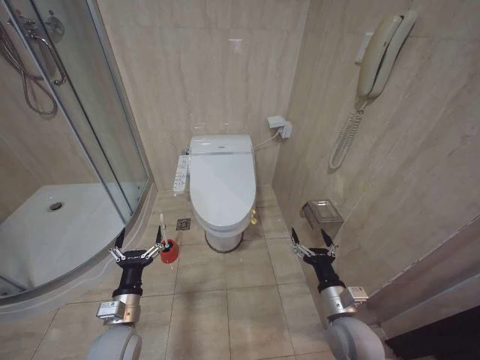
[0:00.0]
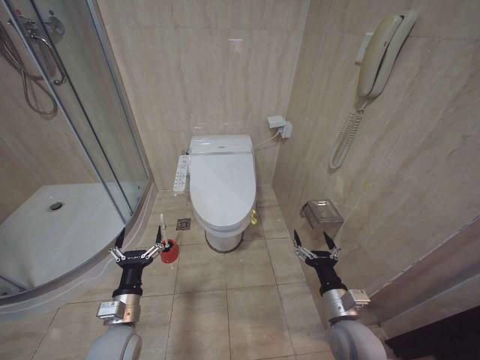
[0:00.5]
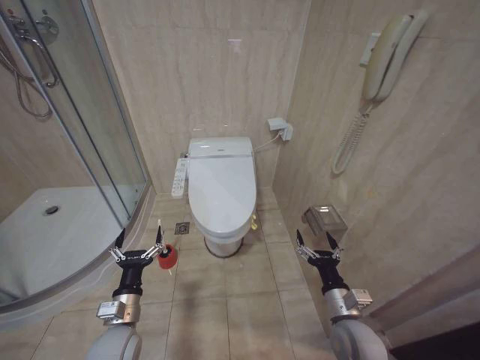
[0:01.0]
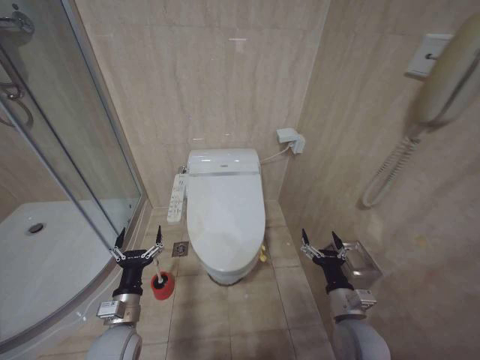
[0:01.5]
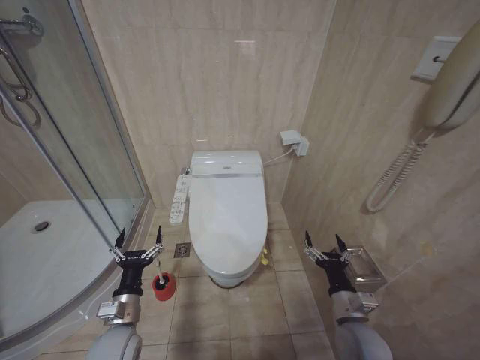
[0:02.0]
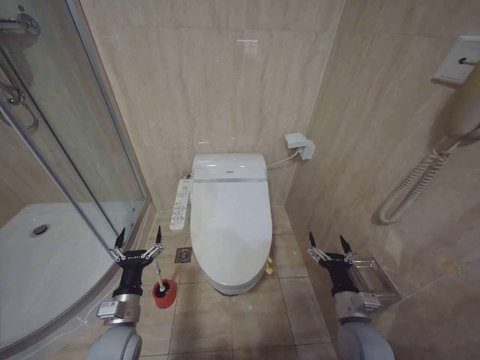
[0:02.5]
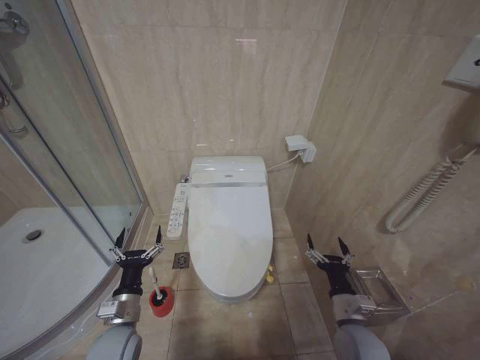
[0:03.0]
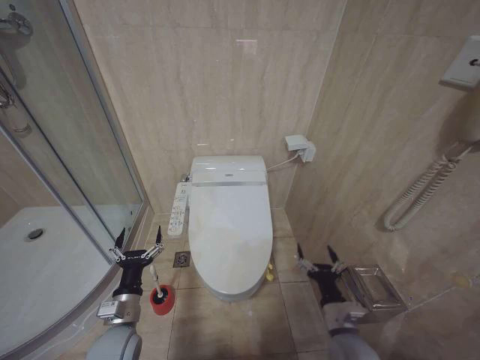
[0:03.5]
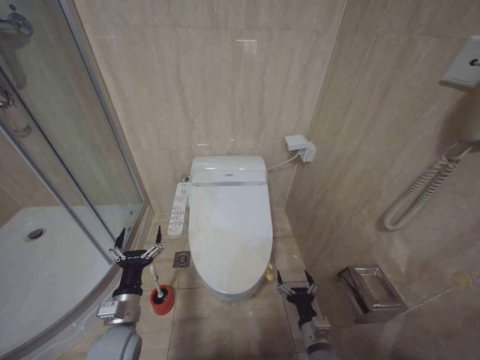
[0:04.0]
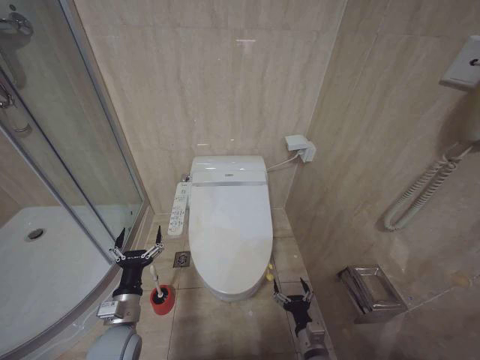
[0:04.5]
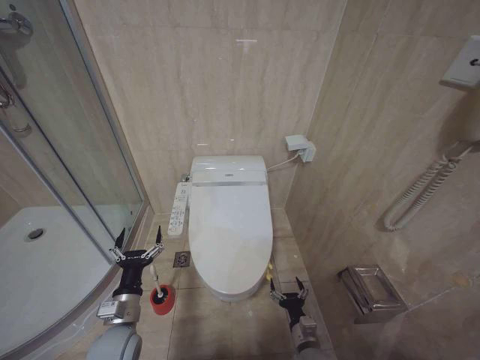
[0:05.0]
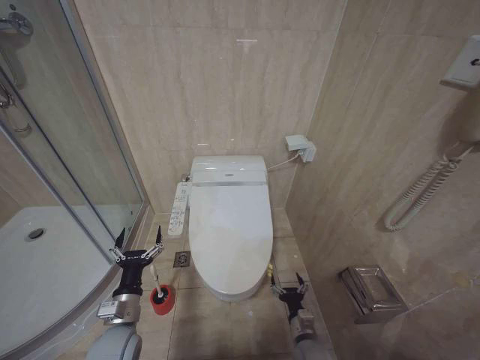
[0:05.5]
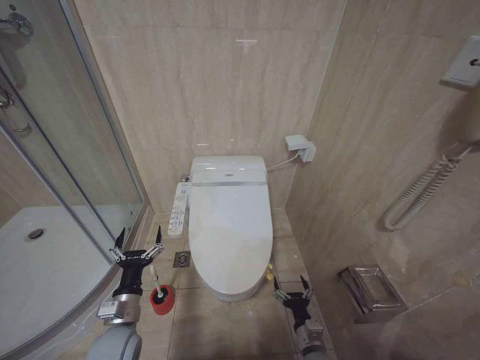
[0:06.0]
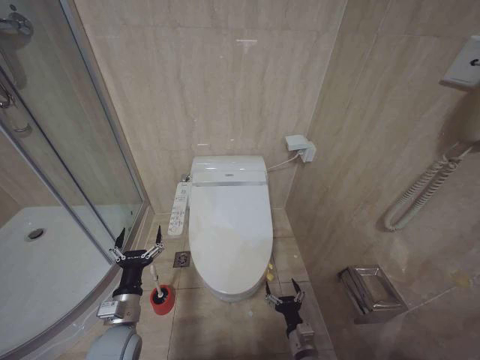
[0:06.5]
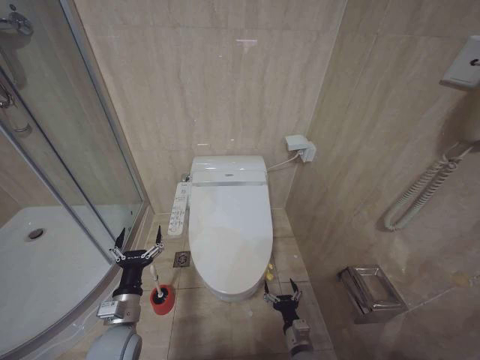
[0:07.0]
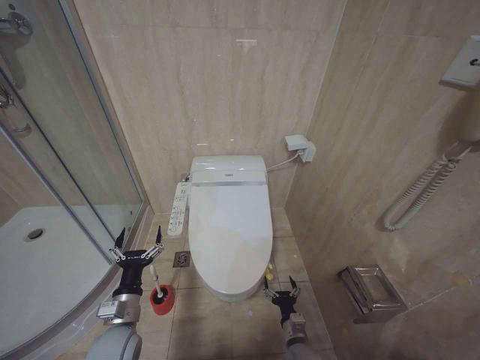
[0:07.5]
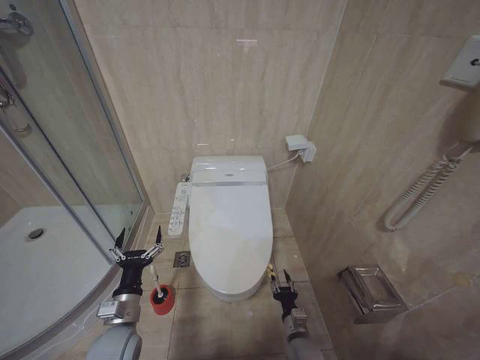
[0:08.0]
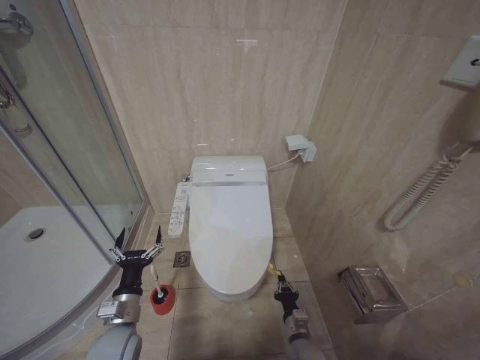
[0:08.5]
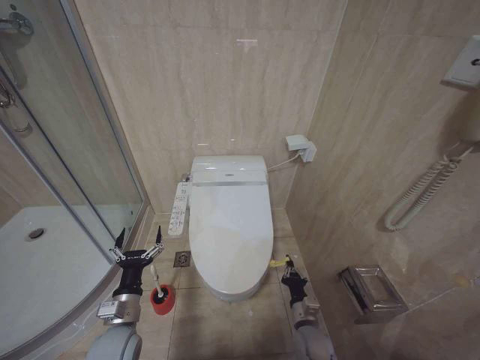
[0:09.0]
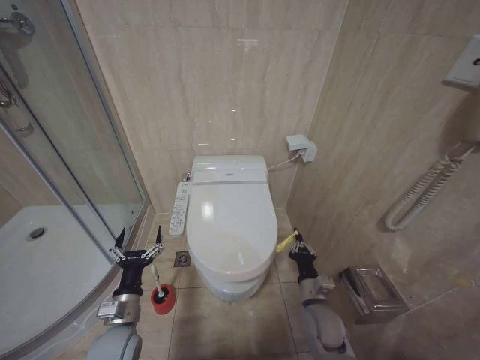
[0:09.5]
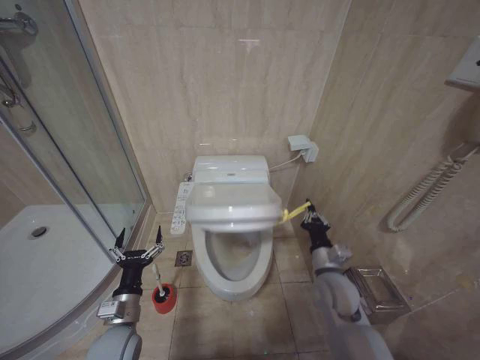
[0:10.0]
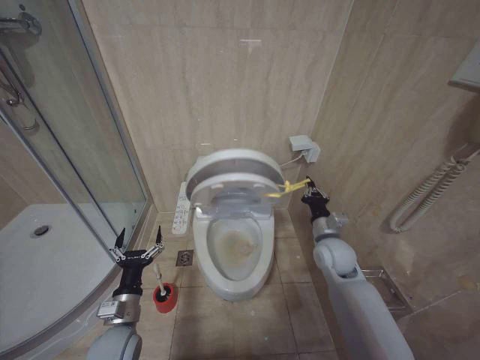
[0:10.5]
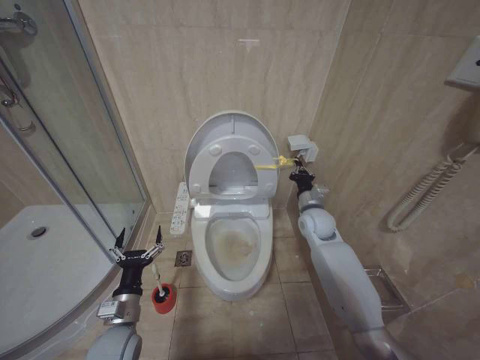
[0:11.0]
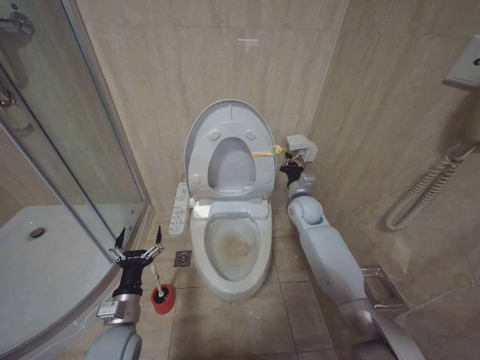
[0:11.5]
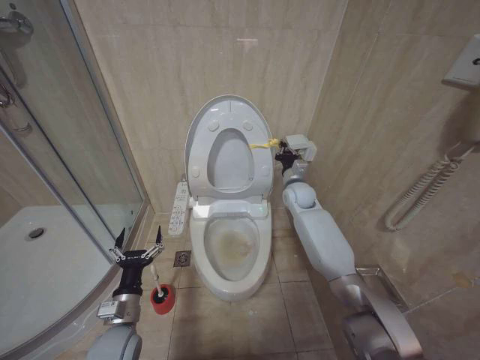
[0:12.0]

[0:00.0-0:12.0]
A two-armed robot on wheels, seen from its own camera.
Task of the whole recording: Open the toilet lid, clean the toilet bowl with a toilet brush, close the toilet lid, and flush.
2.0 to 4.0 s: The right gripper travels downward and to the left by about 10 cm.
6.0 to 8.0 s: The right gripper shifts by approximately 5 cm.
8.0 to 10.0 s: The right gripper moves upward, approximately 20 cm, and closes.
10.0 to 12.0 s: The right gripper moves forward and upward, approximately 30 cm.

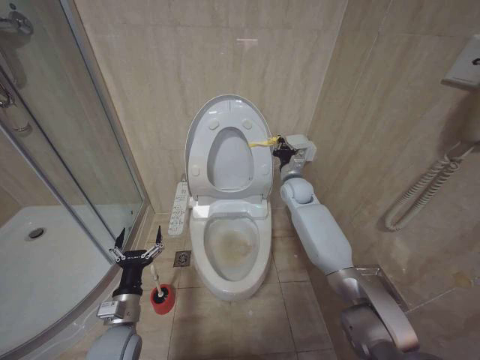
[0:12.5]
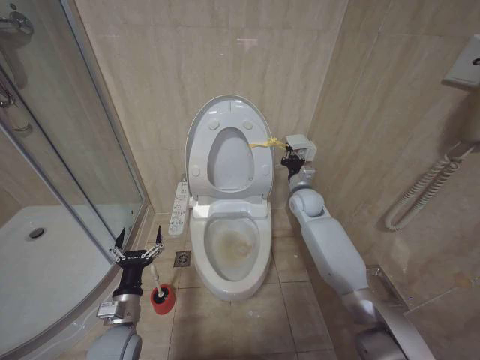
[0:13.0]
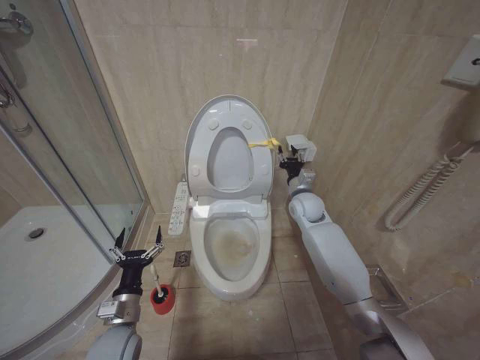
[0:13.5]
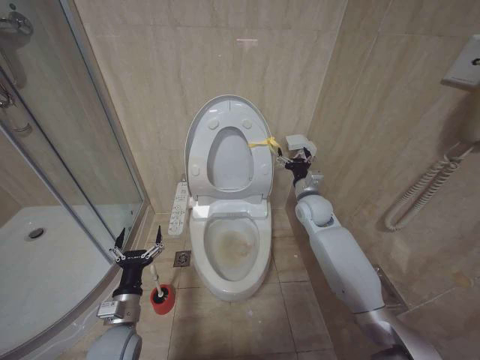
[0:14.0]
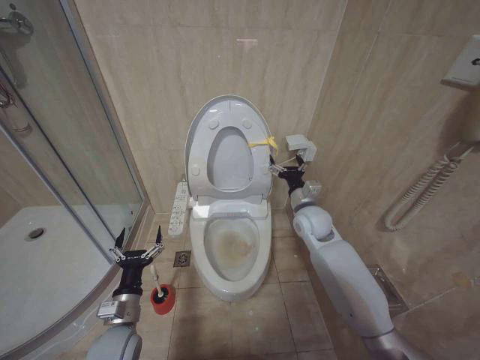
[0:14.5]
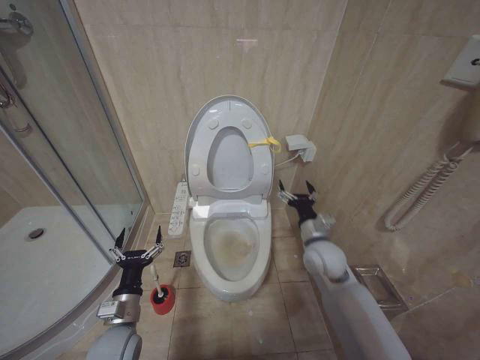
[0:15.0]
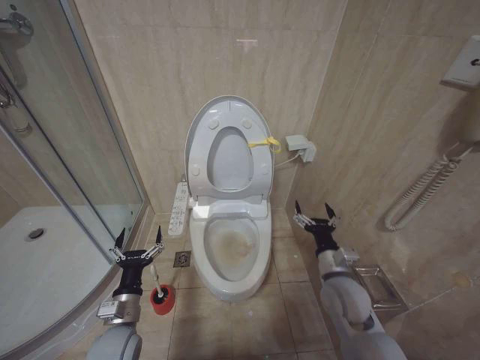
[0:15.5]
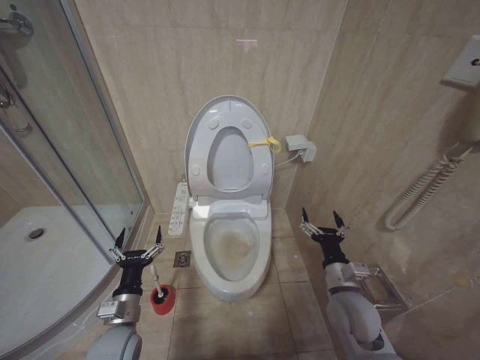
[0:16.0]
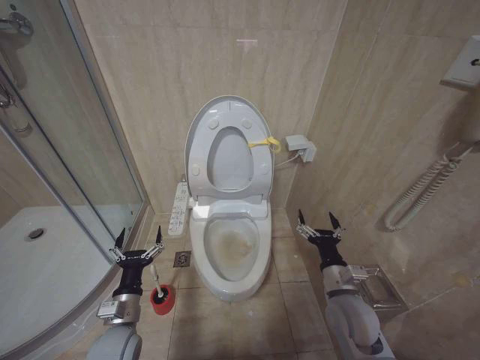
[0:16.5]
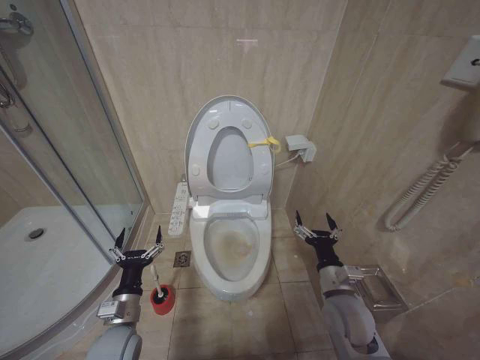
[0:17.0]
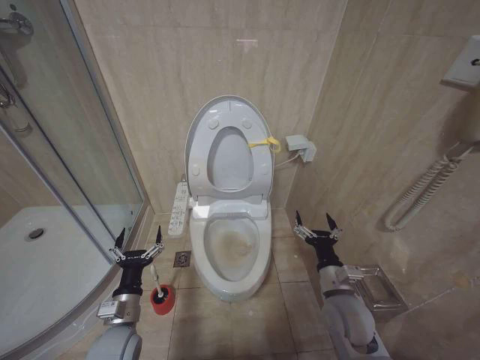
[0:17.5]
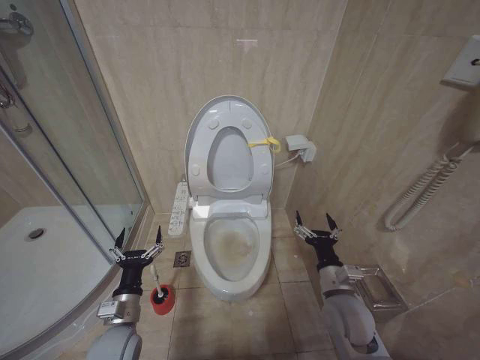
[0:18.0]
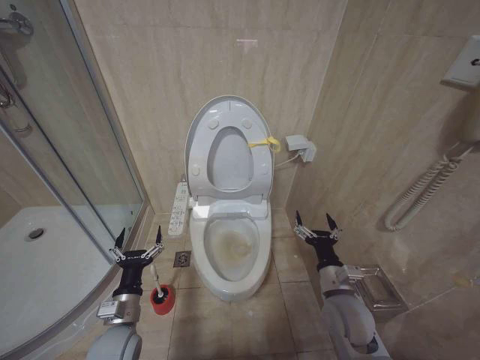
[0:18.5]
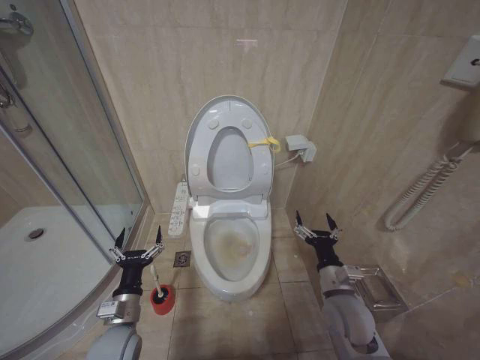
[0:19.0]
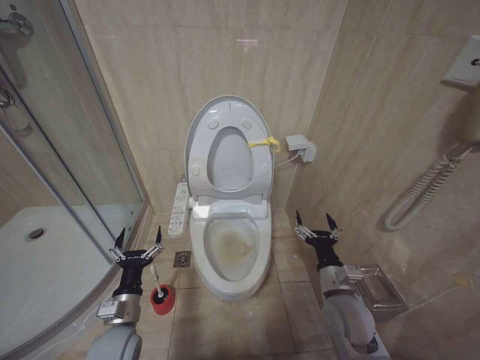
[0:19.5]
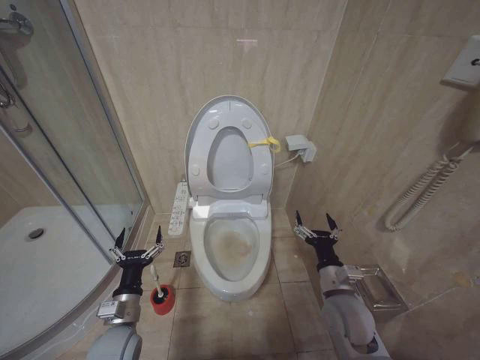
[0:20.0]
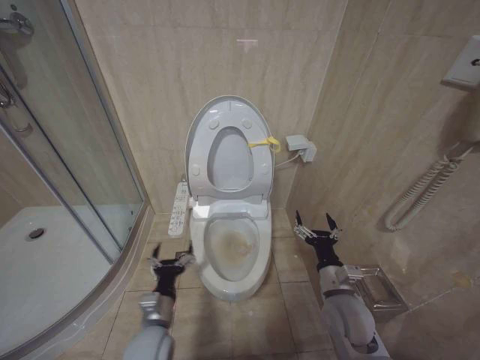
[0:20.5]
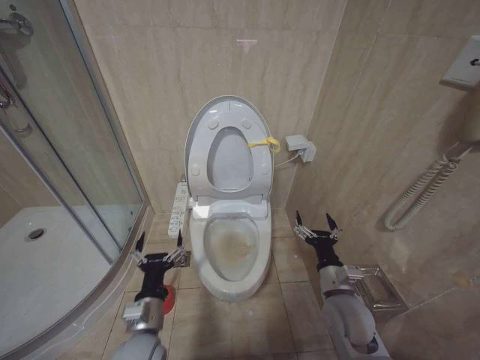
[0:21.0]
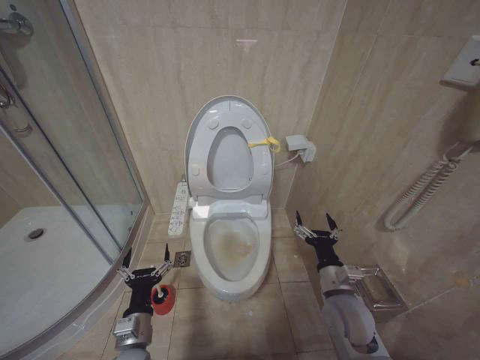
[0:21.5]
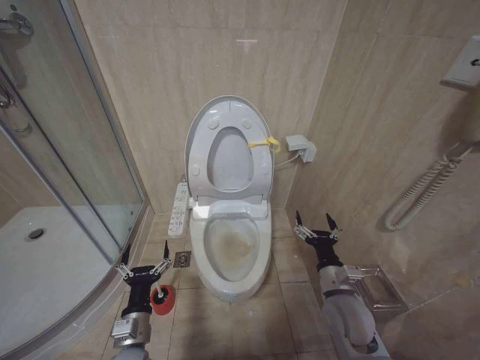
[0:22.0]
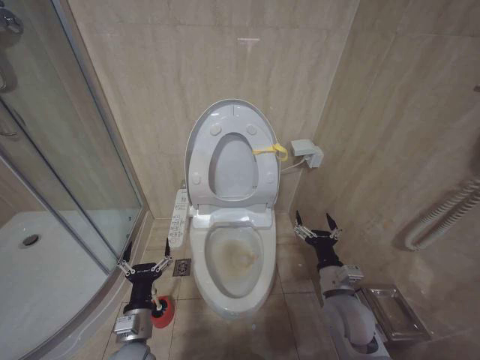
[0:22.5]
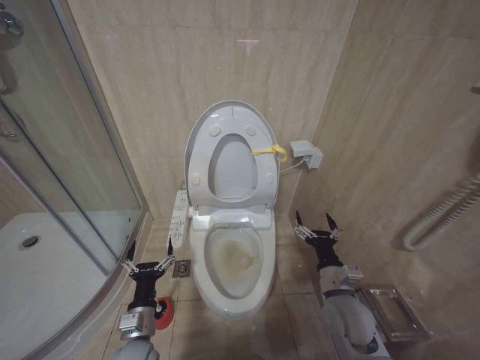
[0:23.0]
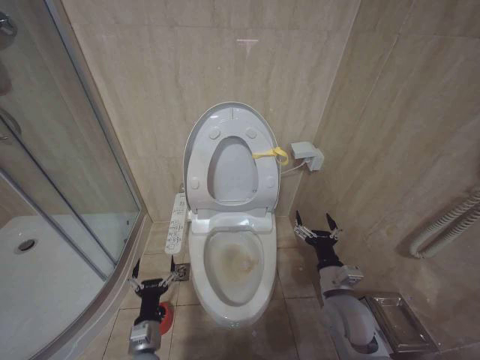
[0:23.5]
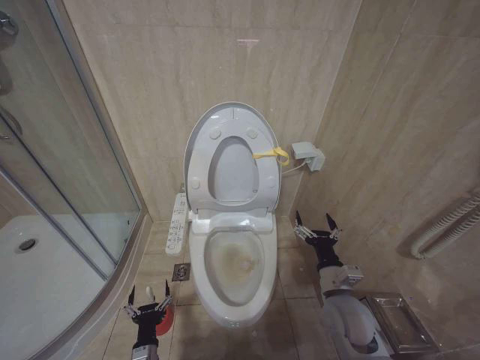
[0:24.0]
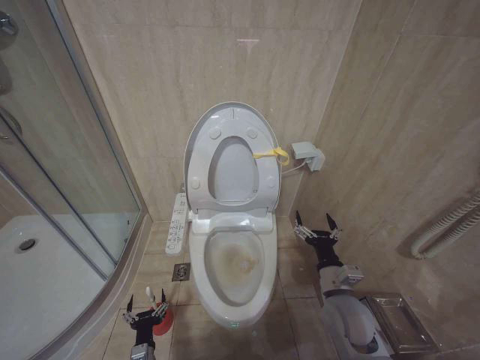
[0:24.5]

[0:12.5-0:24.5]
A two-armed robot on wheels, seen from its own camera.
Task of the whole recording: Open the toilet lid, clean the toilet bowl with a toilet brush, close the toilet lid, and flush.
12.5 to 14.5 s: The right gripper is displaced backward by about 10 cm, and opens.
14.5 to 16.5 s: The right gripper heads backward and downward, covering roughly 25 cm.
16.5 to 18.5 s: The two grippers keep their place.
18.5 to 20.5 s: There are only small adjustments of the grippers.
20.5 to 22.5 s: The grippers make only small movements.
22.5 to 24.5 s: The left gripper goes approximately 20 cm downward.

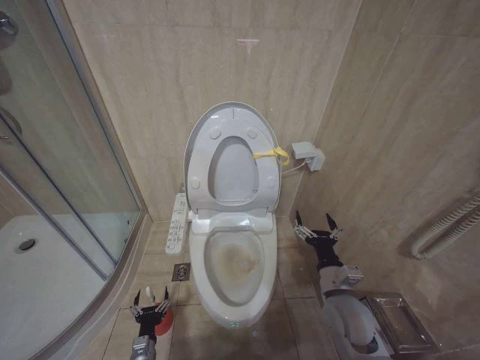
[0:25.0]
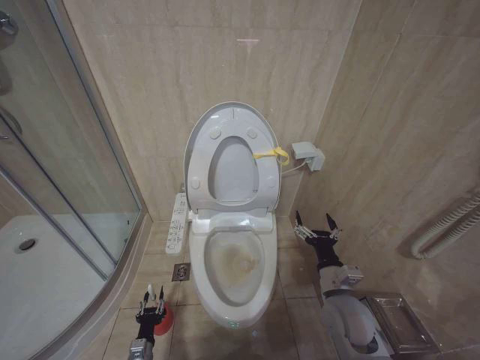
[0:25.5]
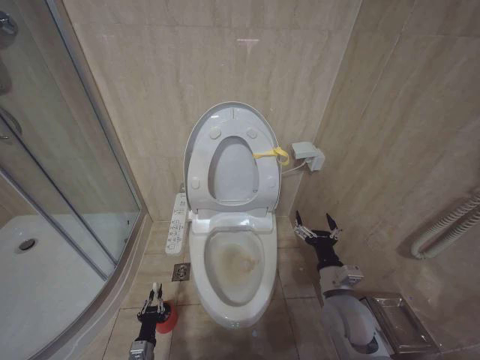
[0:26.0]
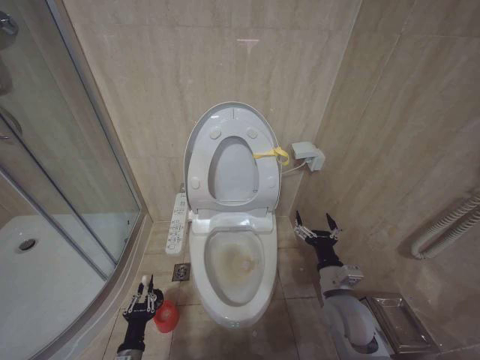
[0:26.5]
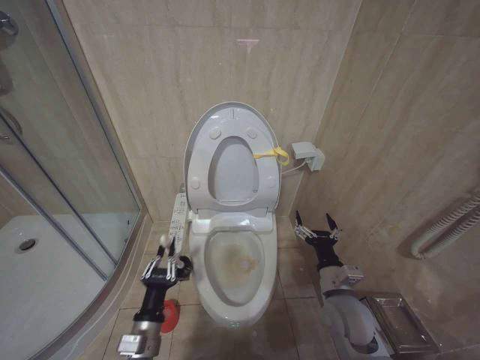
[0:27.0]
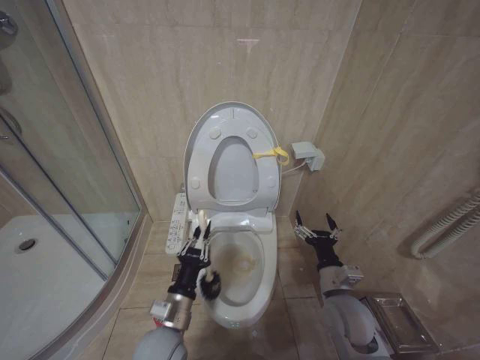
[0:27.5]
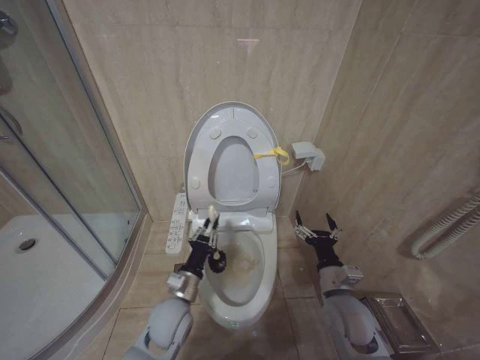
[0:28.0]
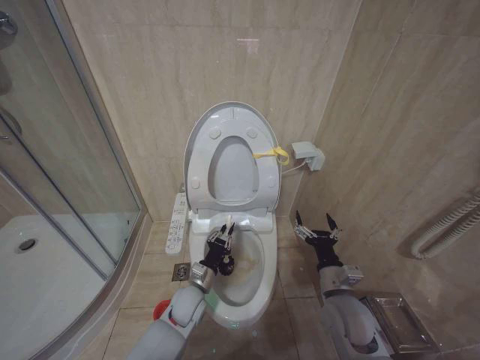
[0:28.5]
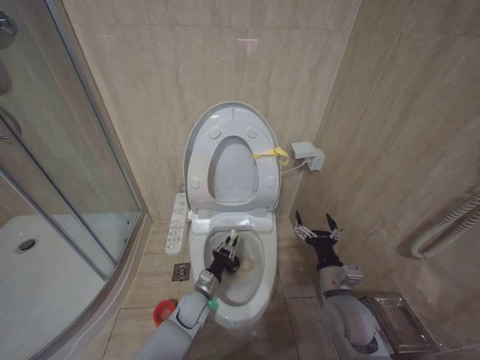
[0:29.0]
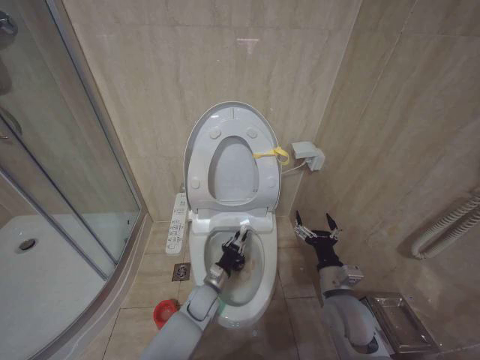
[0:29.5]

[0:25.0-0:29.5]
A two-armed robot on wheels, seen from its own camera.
Task of the whole recording: Open the toilet lid, clean the toilet bowl with a toilet brush, close the toilet lid, and flush.
25.0 to 27.0 s: The left gripper heads upward, covering roughly 20 cm, and closes.
27.0 to 29.5 s: The left gripper shifts roughly 25 cm forward, to the right and downward.
